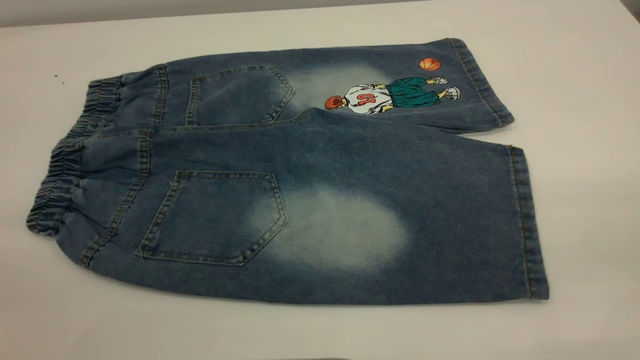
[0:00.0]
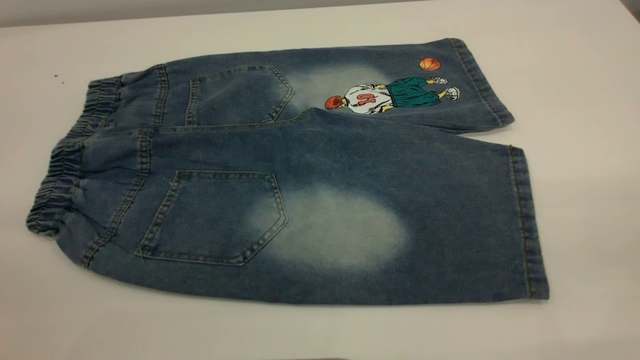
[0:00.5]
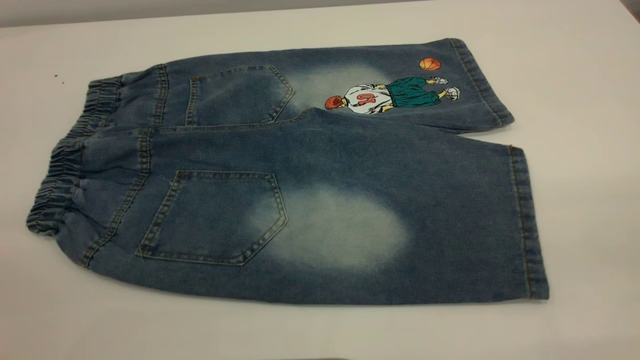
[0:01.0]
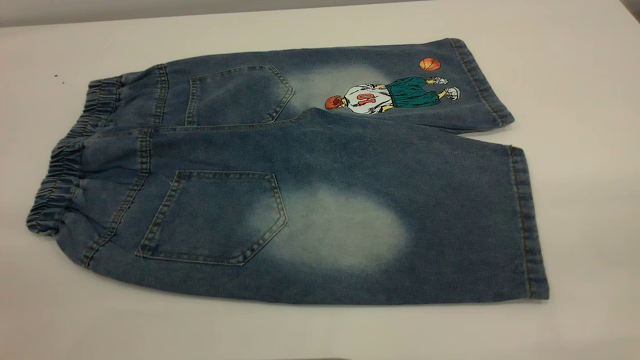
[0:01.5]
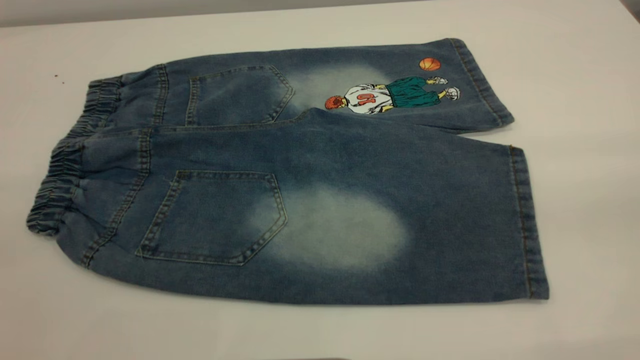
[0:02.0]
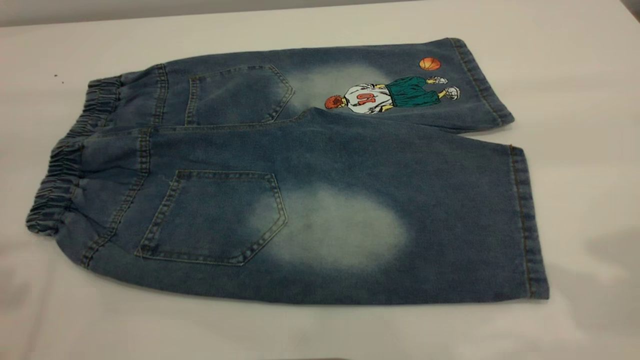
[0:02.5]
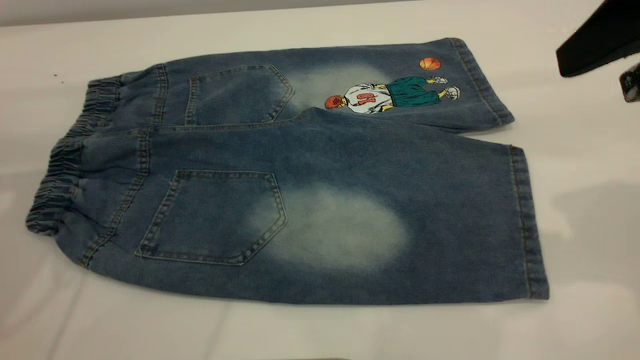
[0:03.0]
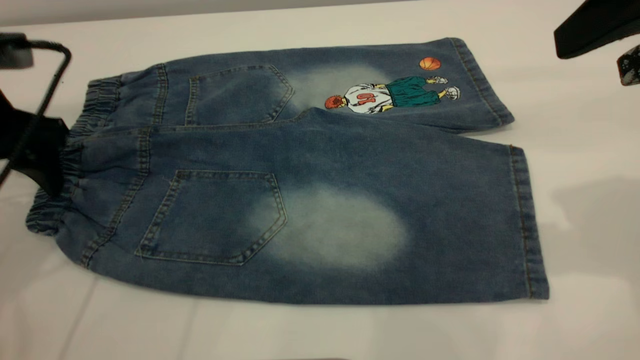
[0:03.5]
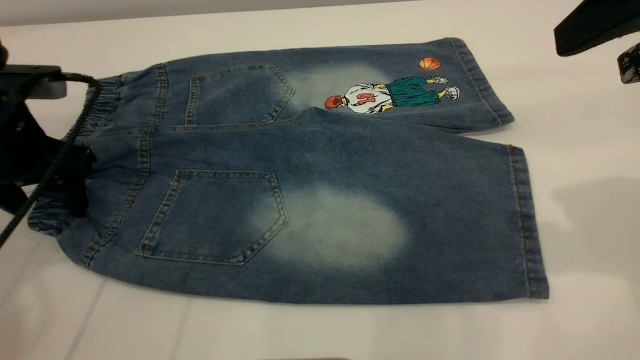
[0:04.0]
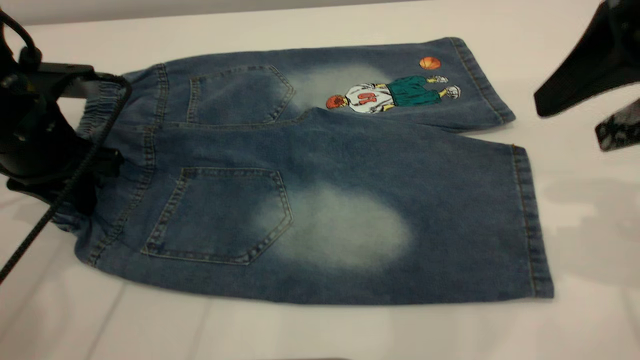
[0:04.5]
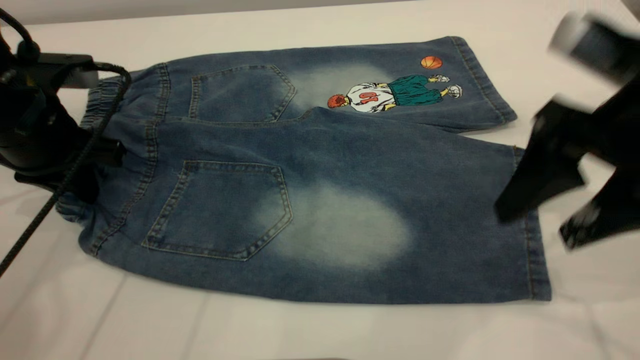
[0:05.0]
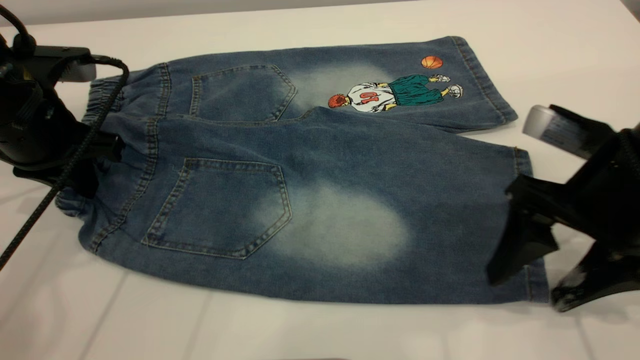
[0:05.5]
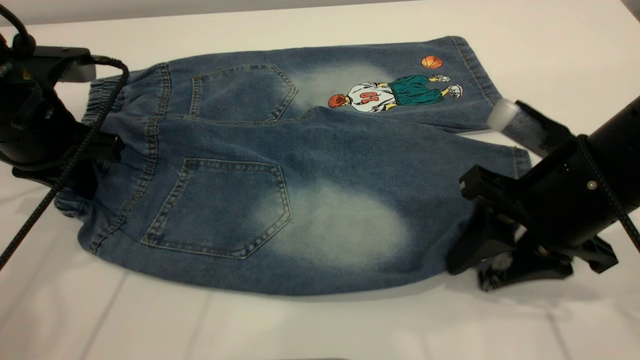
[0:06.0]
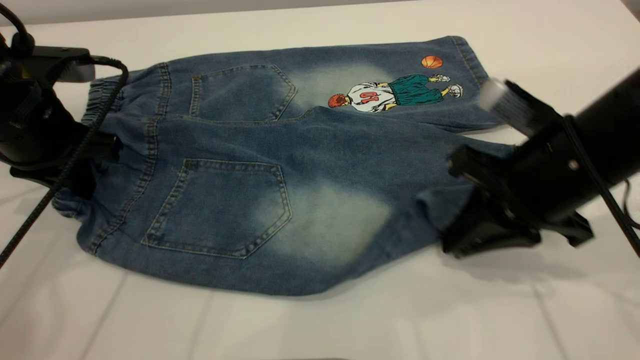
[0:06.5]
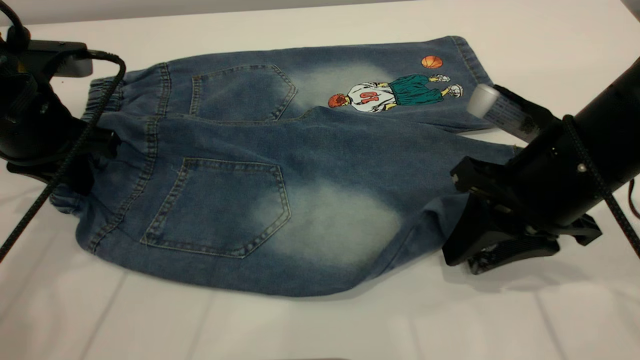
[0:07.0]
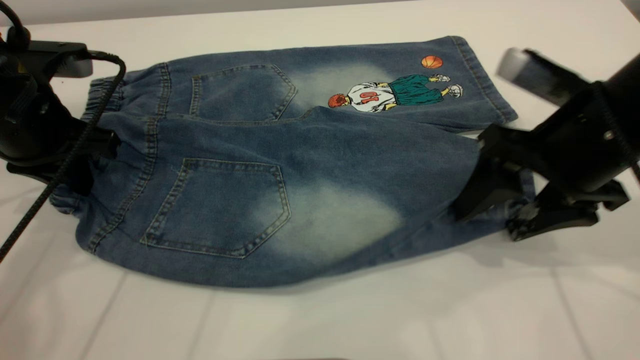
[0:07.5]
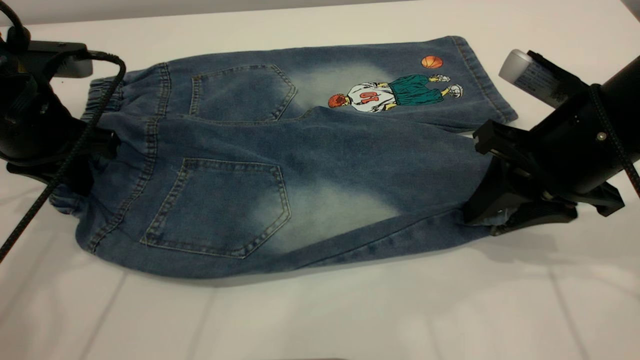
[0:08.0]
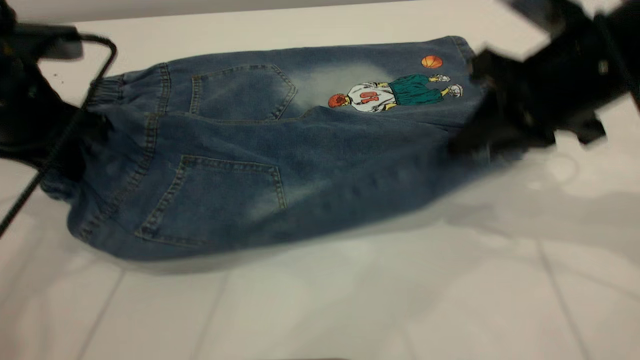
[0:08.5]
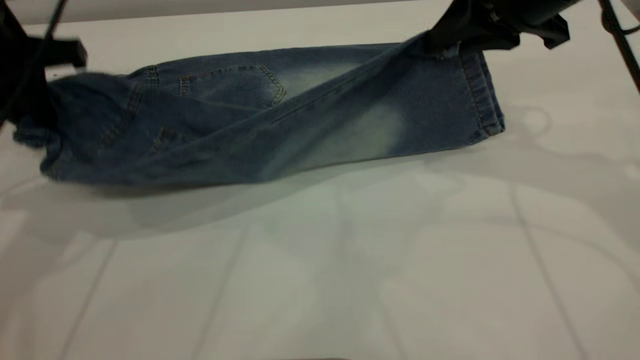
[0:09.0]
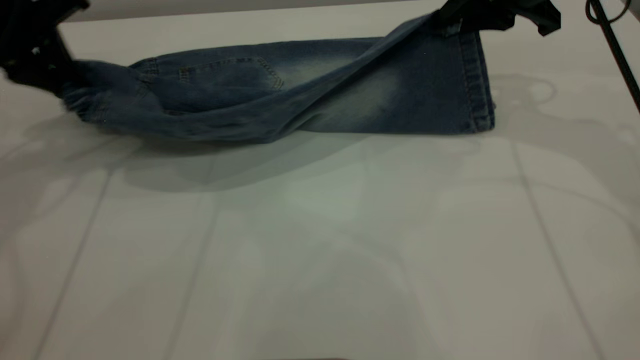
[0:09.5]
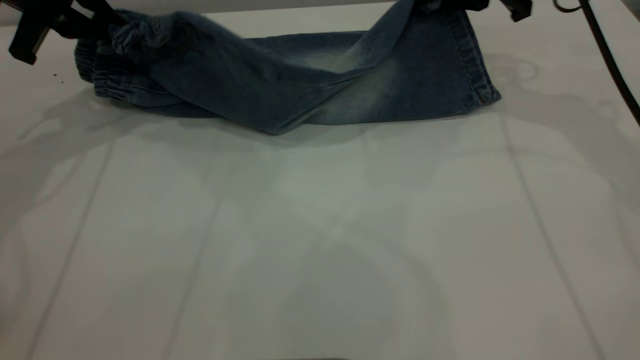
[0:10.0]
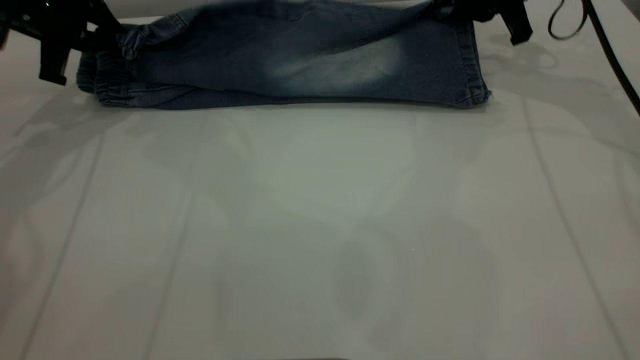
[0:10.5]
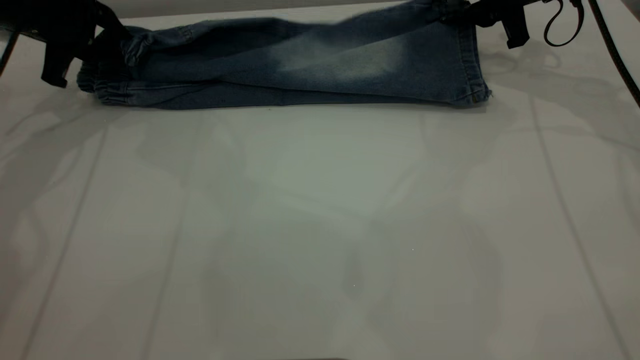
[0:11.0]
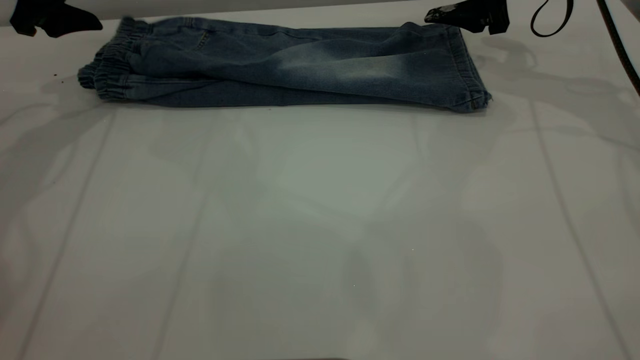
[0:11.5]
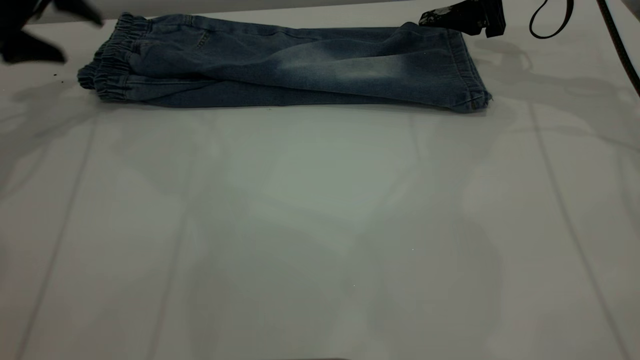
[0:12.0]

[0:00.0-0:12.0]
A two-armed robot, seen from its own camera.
Step, 0:00.0 to 0:11.5: Fold the bottom of the pants upward.
0:02.0 to 0:04.0: The left gripper heads forward and downward, covering some 40 cm; the right gripper travels forward and downward by about 20 cm.
0:04.0 to 0:06.0: The left gripper closes up. Meanwhile the right gripper travels downward by roughly 15 cm, and closes up.
0:06.0 to 0:08.0: The right gripper opens and closes again.
0:08.0 to 0:10.0: The right gripper goes some 20 cm forward. The left gripper travels forward and upward by about 15 cm.
0:10.0 to 0:12.0: The right gripper opens its fingers. Meanwhile the left gripper travels to the left by about 5 cm, and opens up.

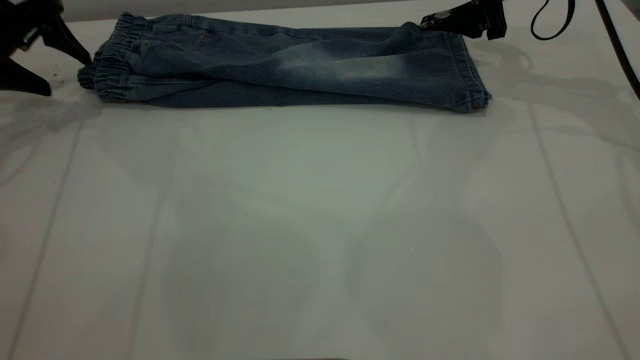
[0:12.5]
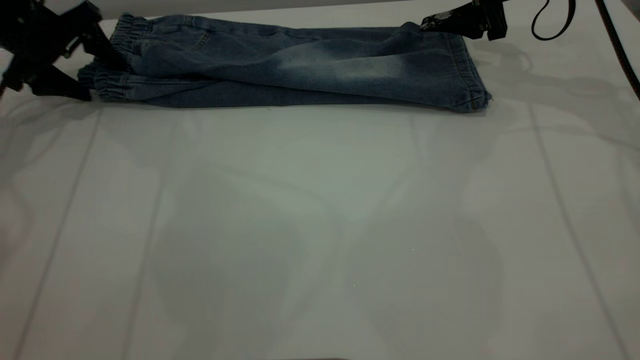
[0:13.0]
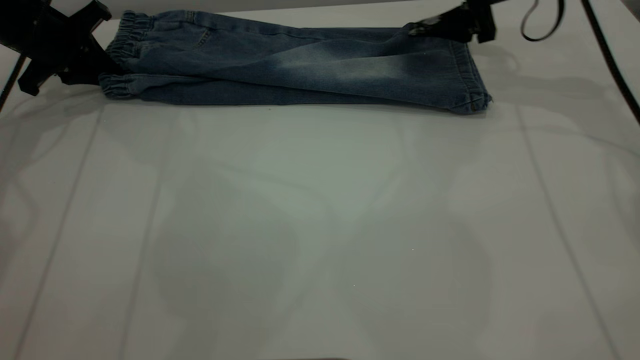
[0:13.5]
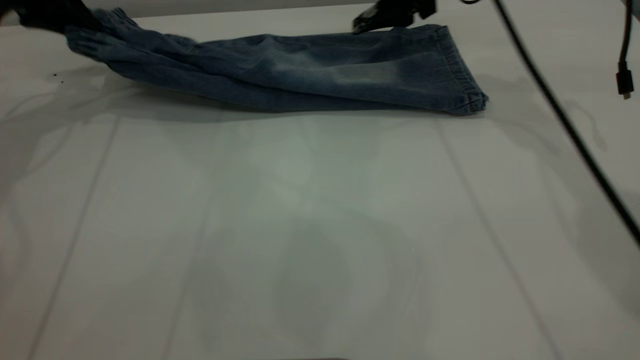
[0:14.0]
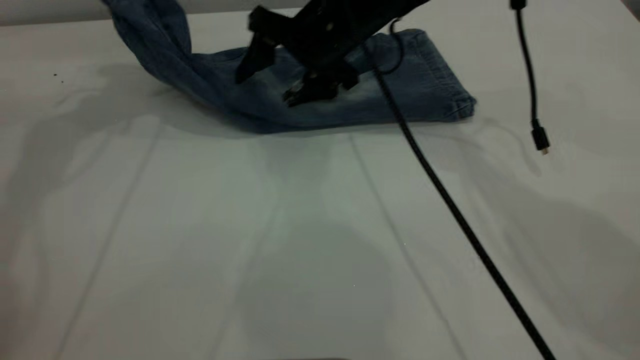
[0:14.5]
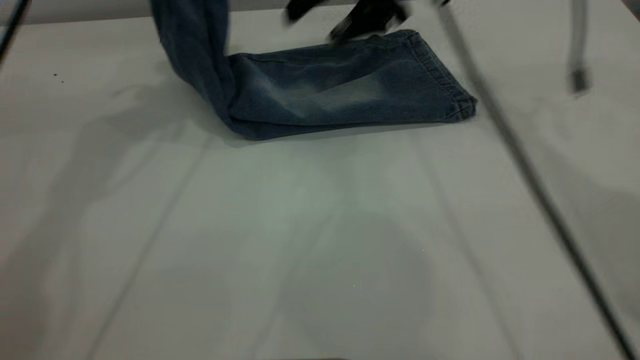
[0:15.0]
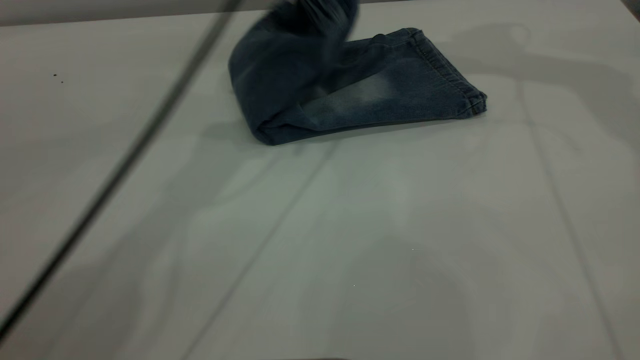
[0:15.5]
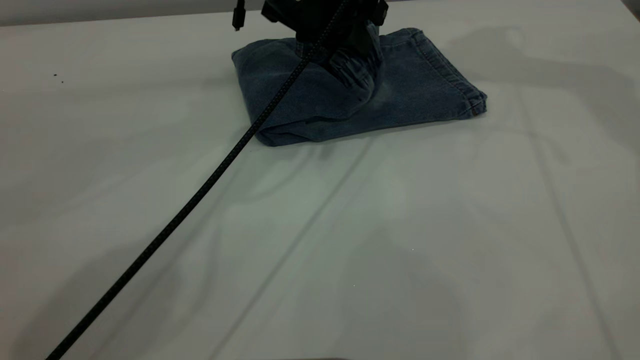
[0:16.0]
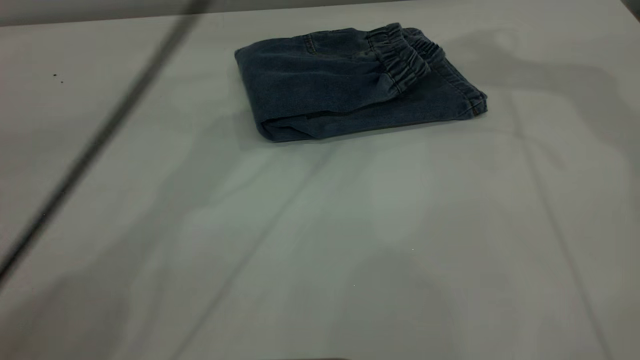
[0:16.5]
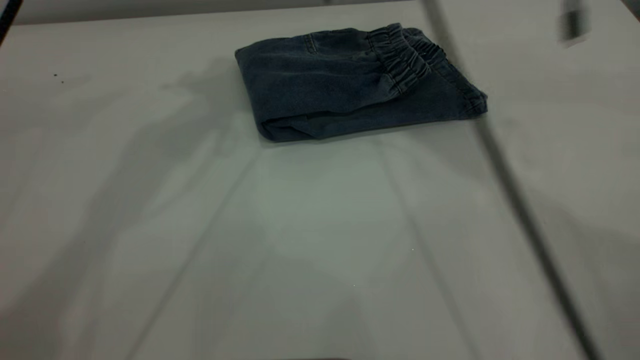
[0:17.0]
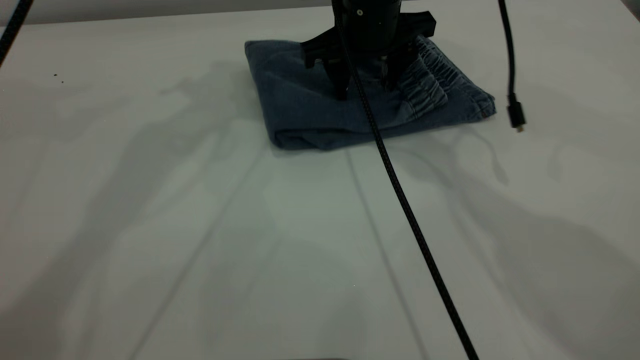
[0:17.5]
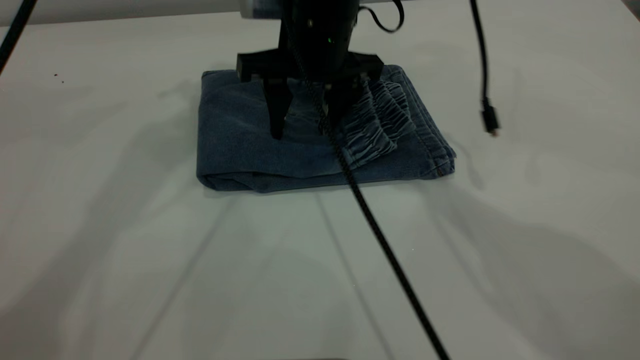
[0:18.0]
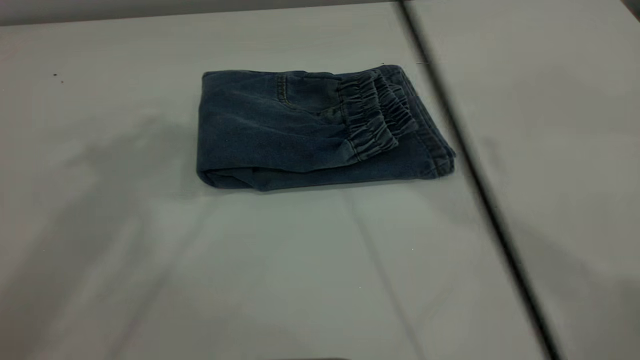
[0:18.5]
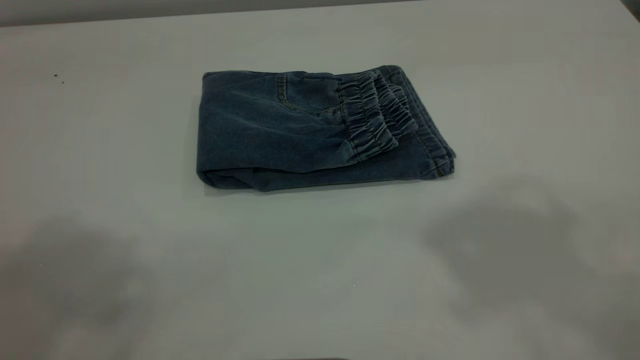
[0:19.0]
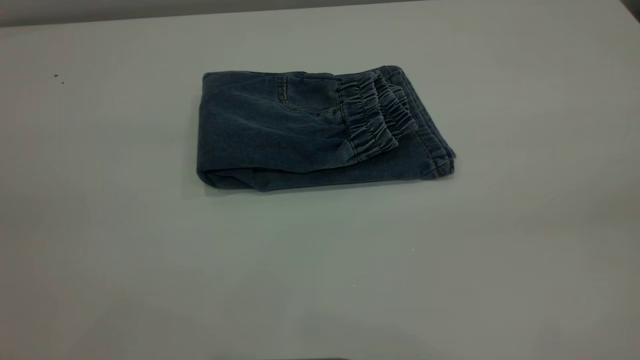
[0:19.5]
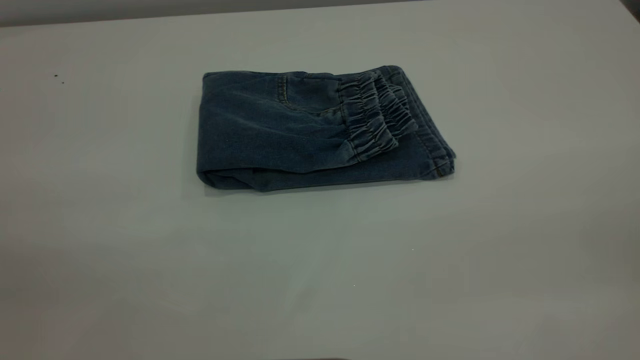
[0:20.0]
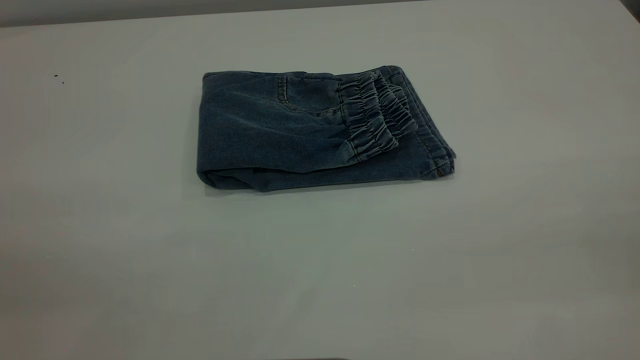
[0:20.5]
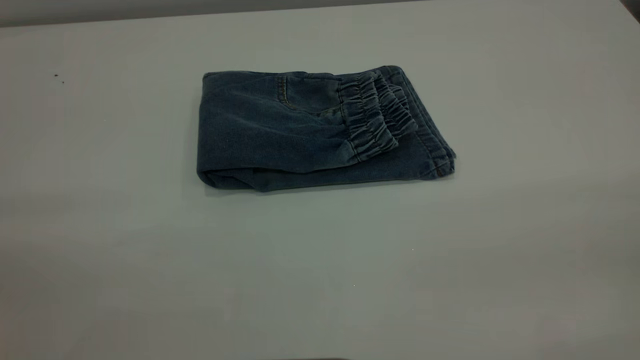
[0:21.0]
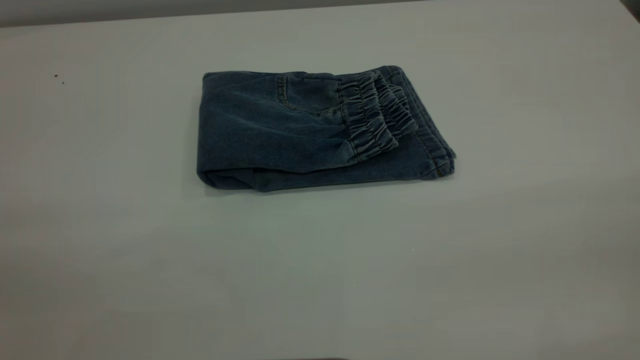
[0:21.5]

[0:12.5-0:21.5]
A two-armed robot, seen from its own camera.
Step, 0:12.5 to 0:16.5: Fold the pants from left to right.
0:12.5 to 0:14.5: The left gripper shifts some 15 cm upward and to the right, and closes. The right gripper goes some 20 cm to the left.
0:14.5 to 0:17.0: The left gripper is displaced to the right and upward by about 15 cm, and opens. The right gripper heads upward, covering about 10 cm.
0:17.0 to 0:19.5: The left gripper shifts about 35 cm backward. Meanwhile the right gripper is displaced backward and to the right by about 40 cm.
